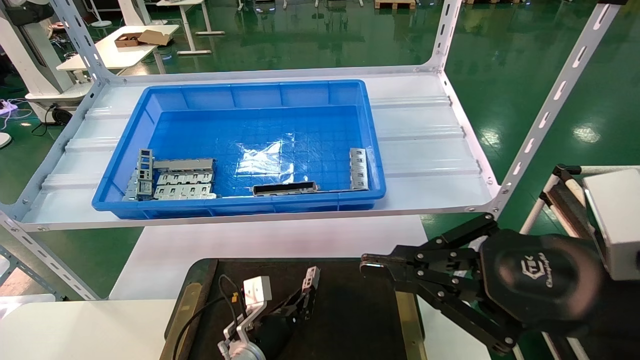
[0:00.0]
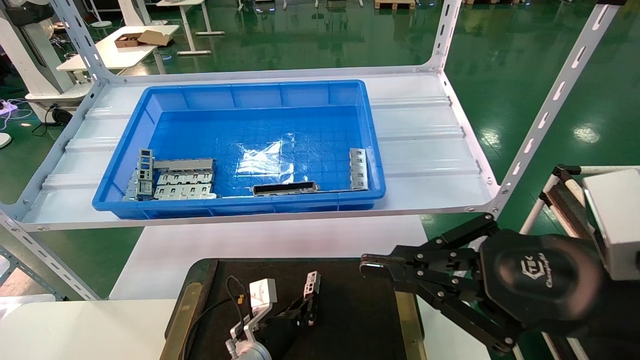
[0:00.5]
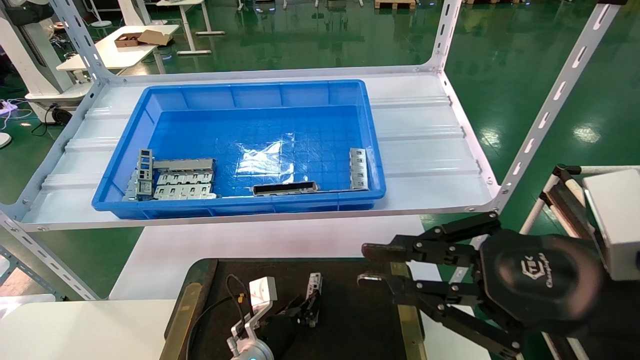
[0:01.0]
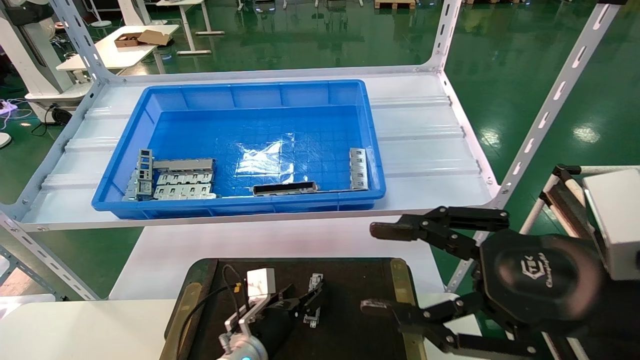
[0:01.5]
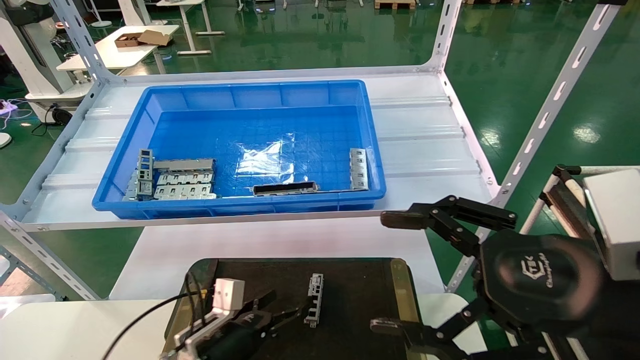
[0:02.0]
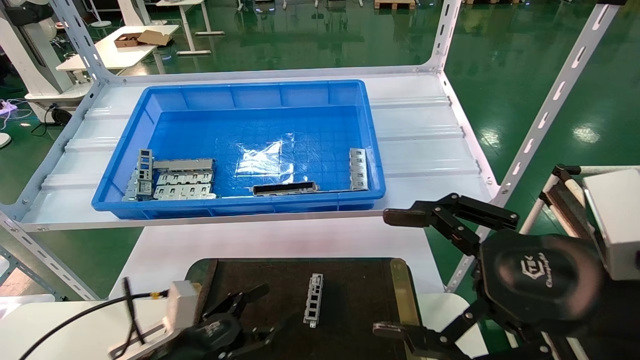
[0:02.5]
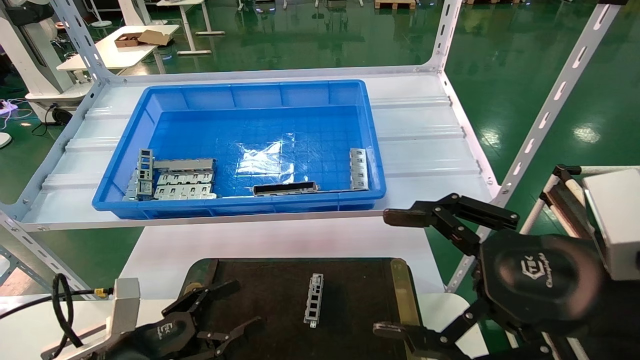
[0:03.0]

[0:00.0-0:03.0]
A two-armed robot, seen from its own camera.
Task of the whole recording: Grasp the part with one hand and place it on the black container.
0:00.0 to 0:01.5: The left gripper opens; the right gripper opens its fingers.
0:01.5 to 0:03.0: The left gripper moves to the left, backward and upward, about 20 cm, and opens its fingers, while the right gripper opens up.
